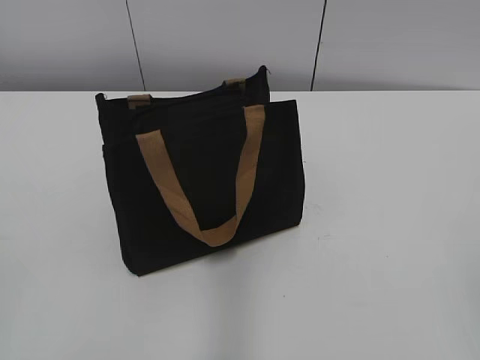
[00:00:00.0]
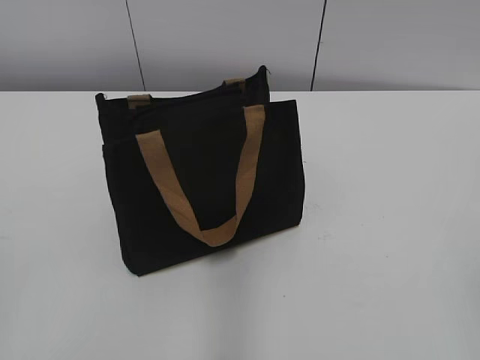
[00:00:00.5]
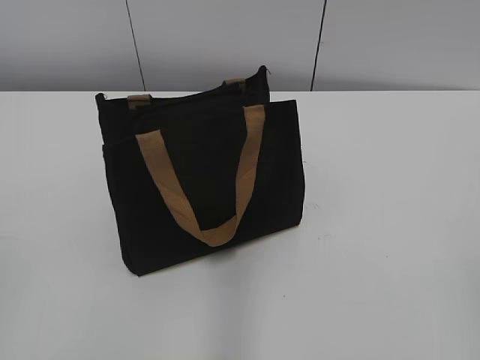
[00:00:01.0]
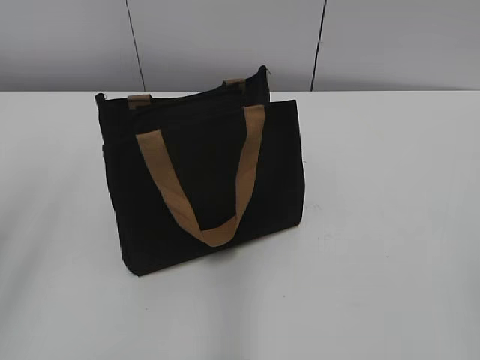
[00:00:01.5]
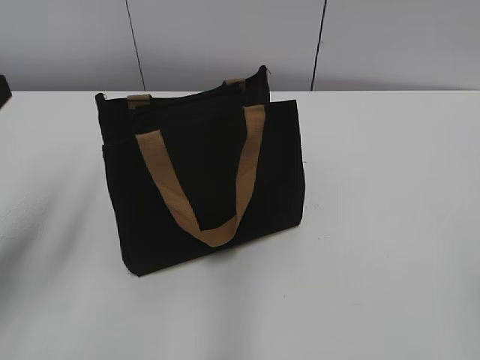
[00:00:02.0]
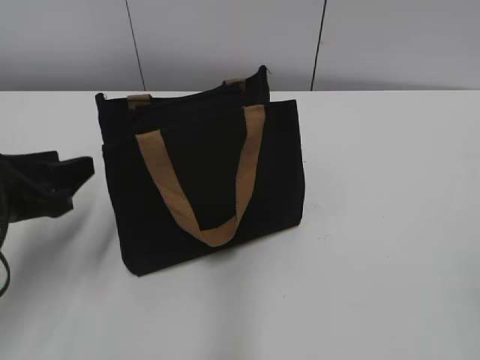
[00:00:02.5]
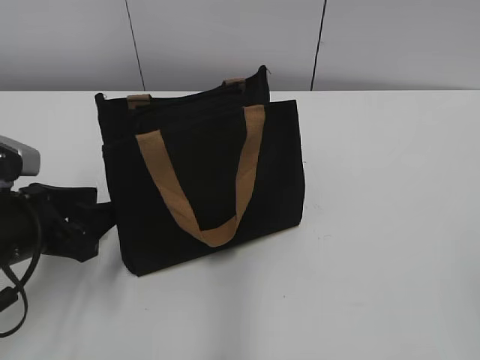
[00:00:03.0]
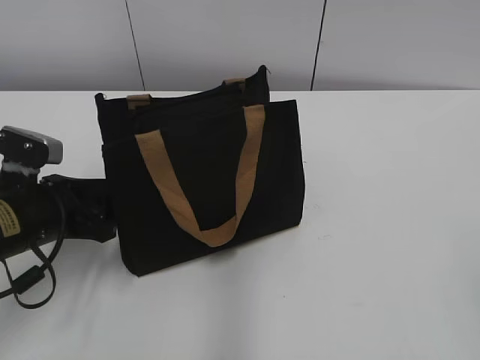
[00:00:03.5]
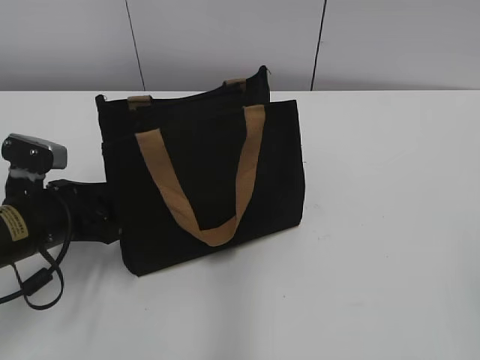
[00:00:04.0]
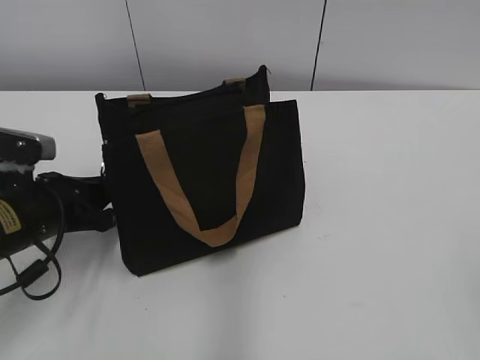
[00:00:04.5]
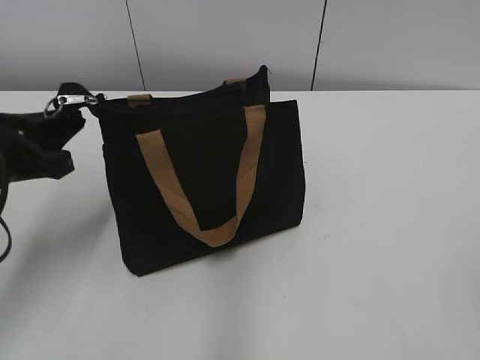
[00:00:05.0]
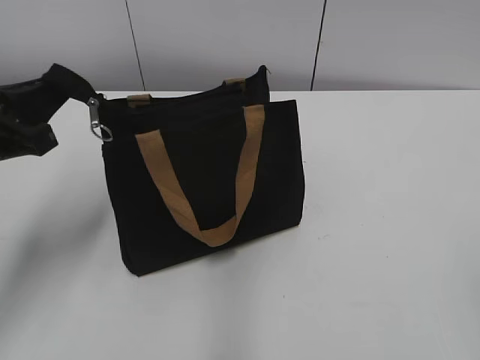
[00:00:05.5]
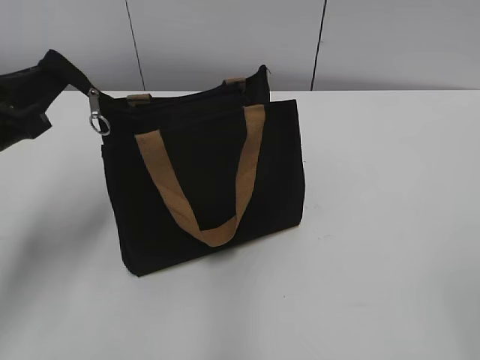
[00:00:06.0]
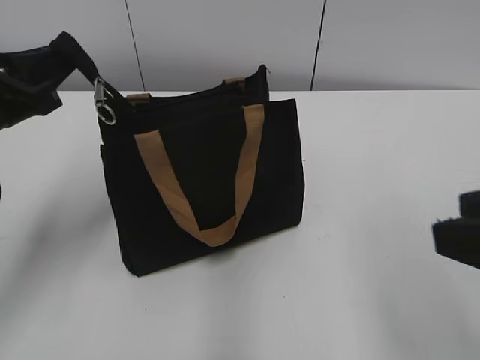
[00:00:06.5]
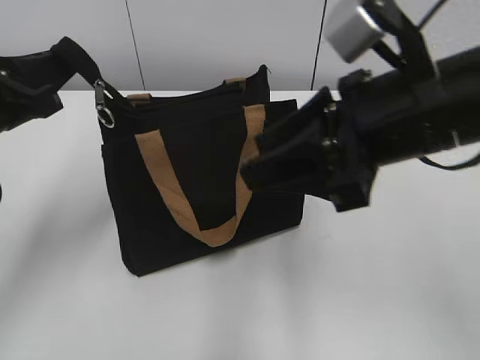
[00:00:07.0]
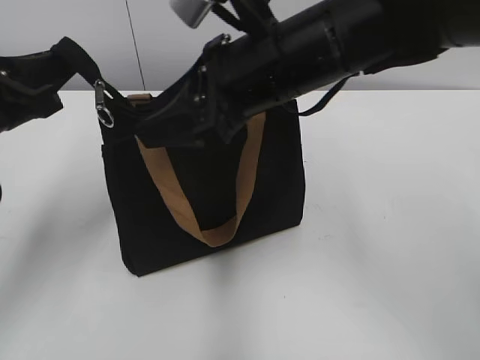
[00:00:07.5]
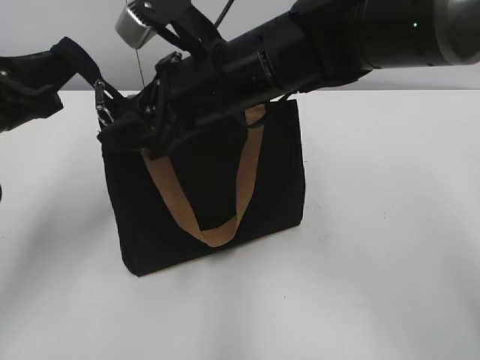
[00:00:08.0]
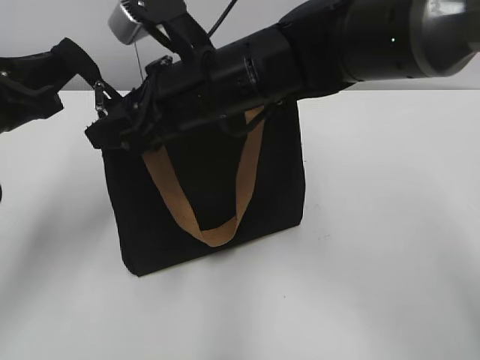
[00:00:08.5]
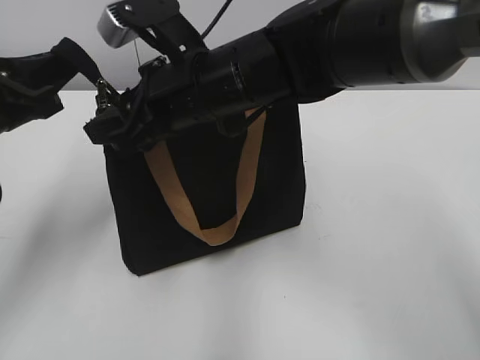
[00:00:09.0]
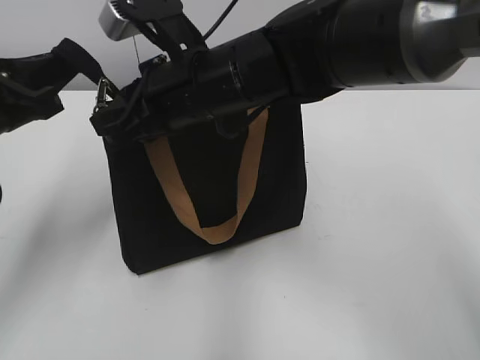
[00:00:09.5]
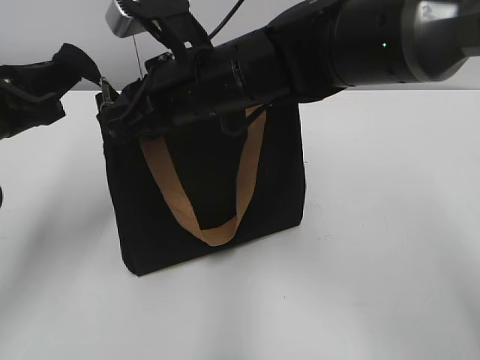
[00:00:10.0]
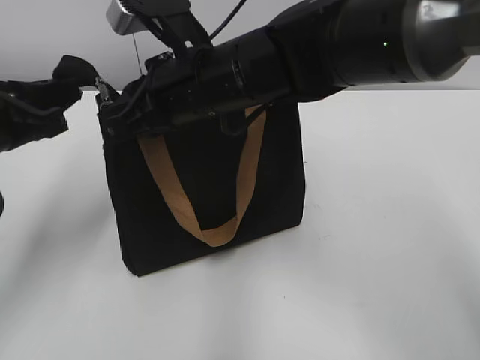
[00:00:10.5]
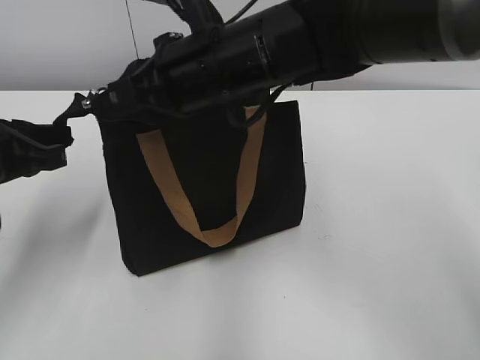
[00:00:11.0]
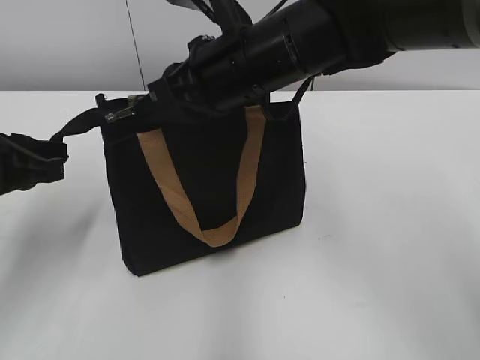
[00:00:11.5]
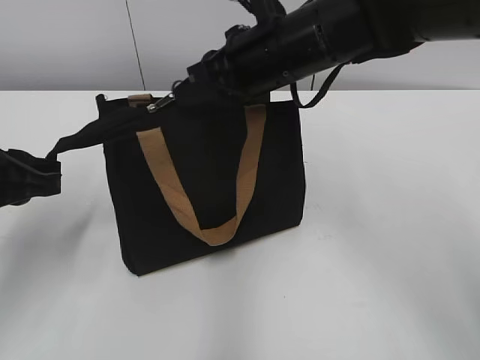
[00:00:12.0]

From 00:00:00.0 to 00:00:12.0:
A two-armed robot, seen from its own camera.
From 00:00:02.0 to 00:00:04.0: The left gripper is displaced downward and forward by some 15 cm.
From 00:00:04.0 to 00:00:06.0: The left gripper goes some 10 cm upward, and closes up.
From 00:00:06.0 to 00:00:08.0: The right gripper shifts approximately 40 cm forward and to the left.
From 00:00:08.0 to 00:00:10.0: The right gripper closes up.
From 00:00:10.0 to 00:00:12.0: The left gripper changes place by roughly 5 cm; the right gripper heads to the right, covering approximately 5 cm.

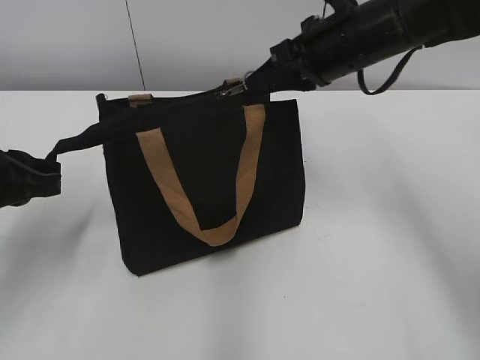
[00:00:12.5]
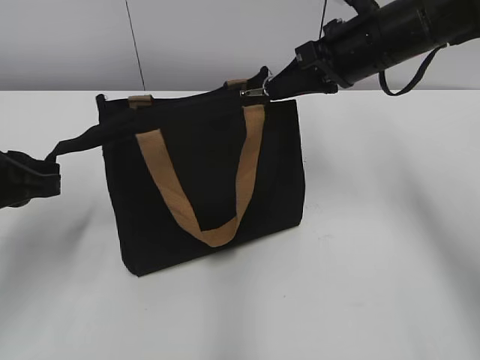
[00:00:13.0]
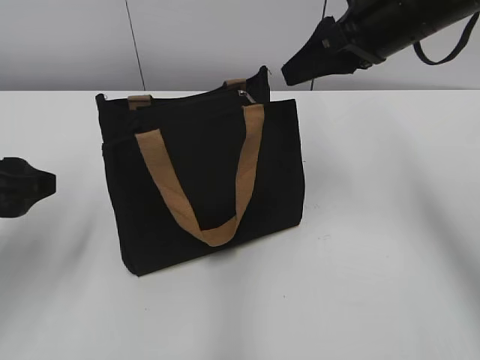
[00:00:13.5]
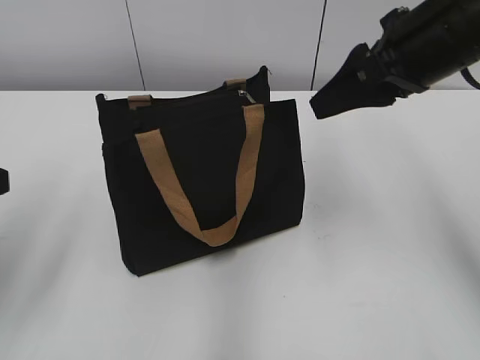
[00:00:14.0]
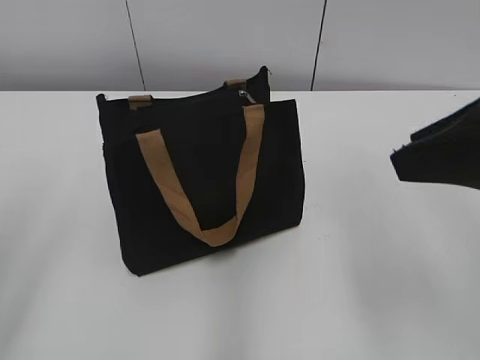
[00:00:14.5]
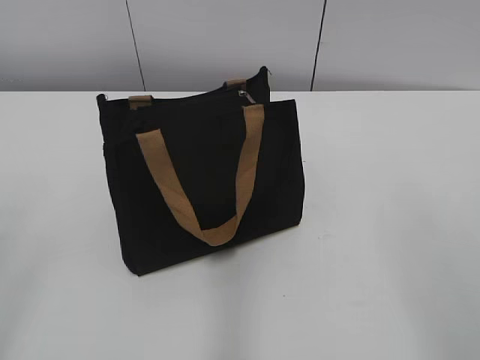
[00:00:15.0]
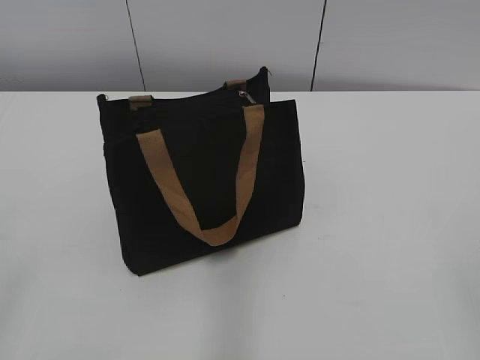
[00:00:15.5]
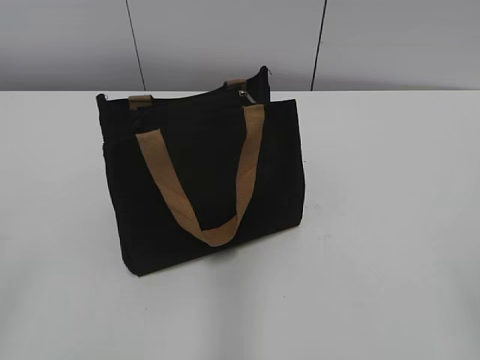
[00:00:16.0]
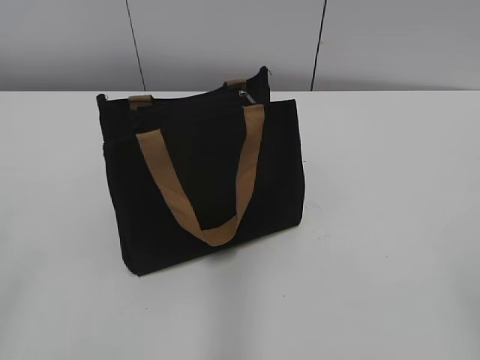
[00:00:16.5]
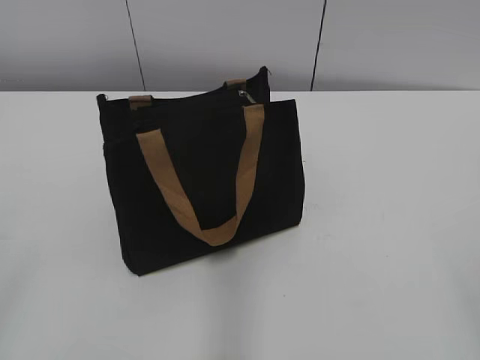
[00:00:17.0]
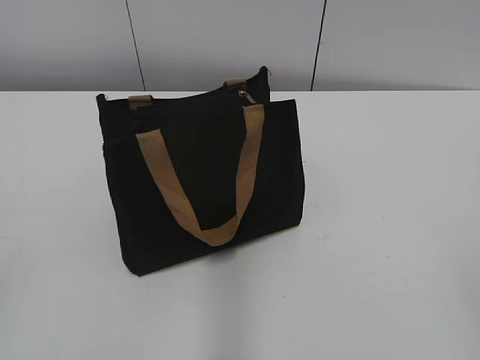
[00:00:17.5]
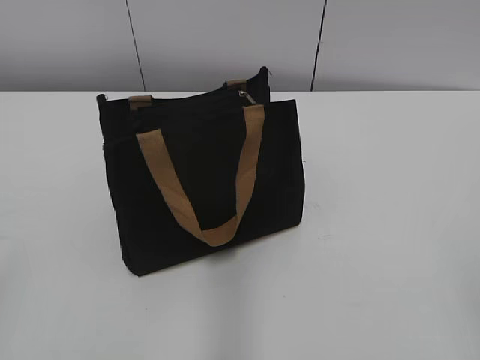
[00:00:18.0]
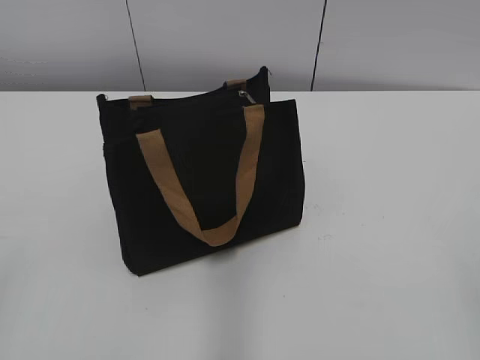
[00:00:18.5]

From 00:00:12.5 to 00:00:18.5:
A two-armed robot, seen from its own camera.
From 00:00:12.5 to 00:00:14.5: The left gripper shifts some 15 cm backward and upward, and opens. Meanwhile the right gripper heads backward and to the right, covering some 20 cm, and opens its fingers.
From 00:00:14.5 to 00:00:16.5: The right gripper goes about 20 cm backward.
